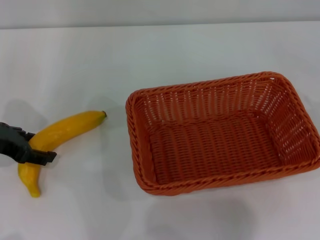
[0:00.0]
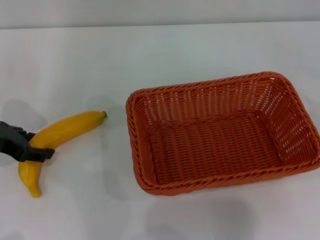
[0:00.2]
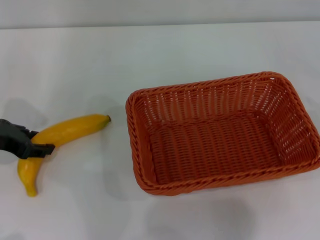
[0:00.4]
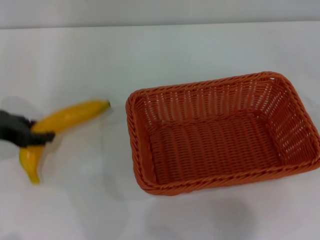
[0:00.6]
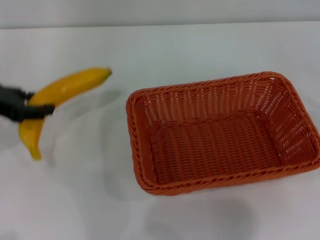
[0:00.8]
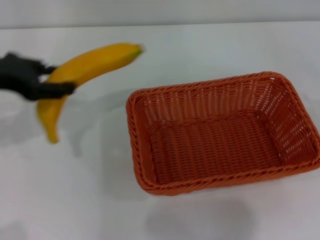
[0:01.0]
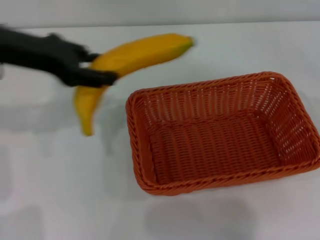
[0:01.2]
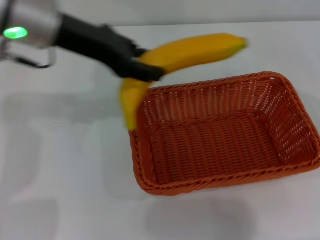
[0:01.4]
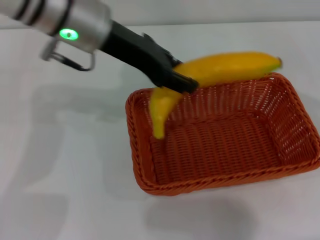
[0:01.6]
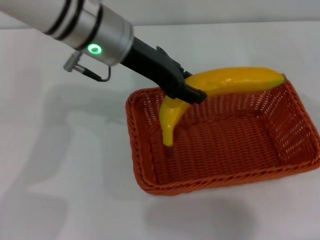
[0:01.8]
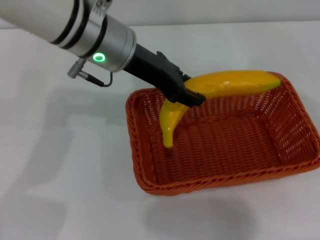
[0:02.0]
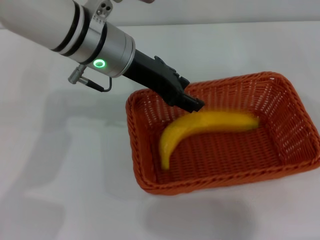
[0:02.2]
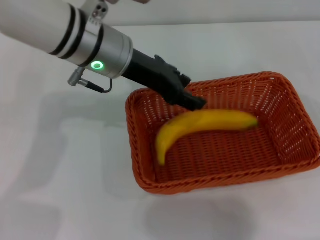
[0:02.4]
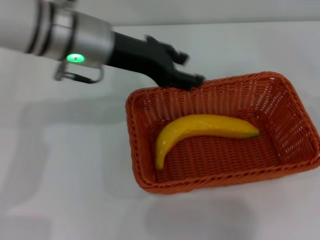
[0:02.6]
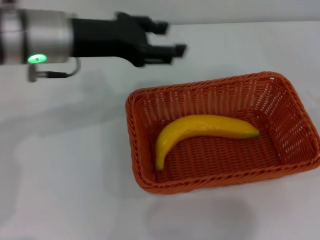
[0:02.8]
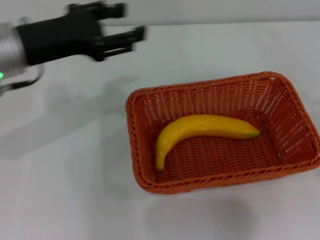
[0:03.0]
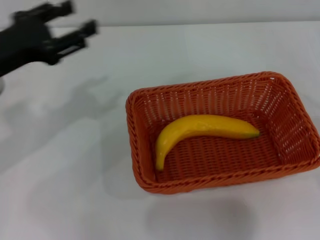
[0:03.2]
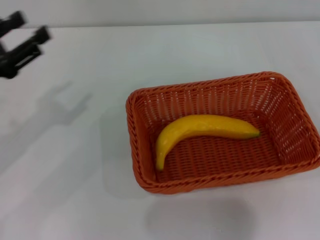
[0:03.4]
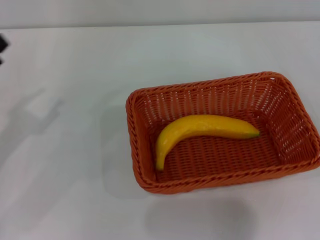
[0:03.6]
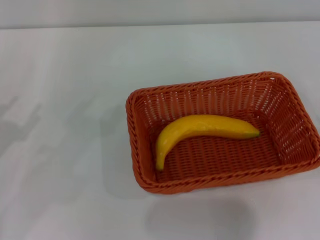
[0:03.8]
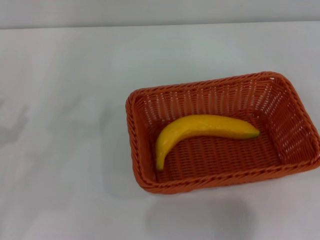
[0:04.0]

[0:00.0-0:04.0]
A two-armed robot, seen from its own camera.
Step, 0:00.8 to 0:02.4: Place the banana into the light basket with the left gripper.
0:00.0 to 0:01.4: The left gripper goes some 20 cm to the right and upward, and closes.
0:01.4 to 0:02.6: The left gripper opens its fingers.
0:02.6 to 0:04.0: The right gripper goes roughly 15 cm downward and backward, and opens. The left gripper travels to the left, backward and downward by about 30 cm.

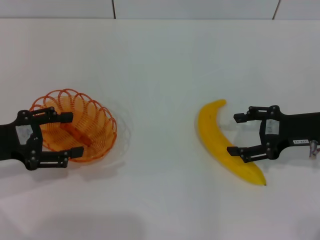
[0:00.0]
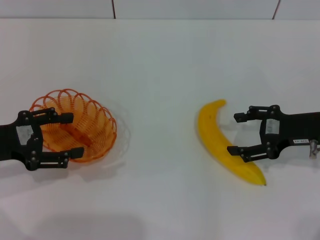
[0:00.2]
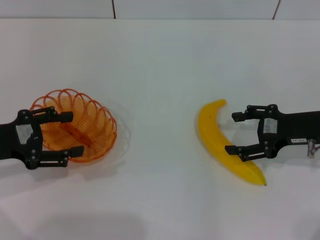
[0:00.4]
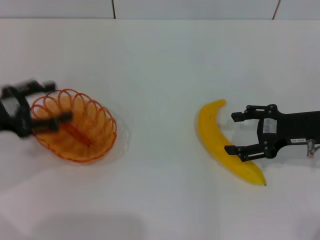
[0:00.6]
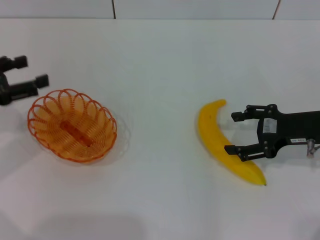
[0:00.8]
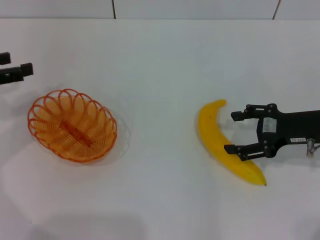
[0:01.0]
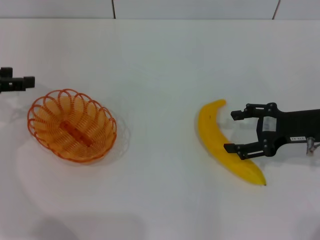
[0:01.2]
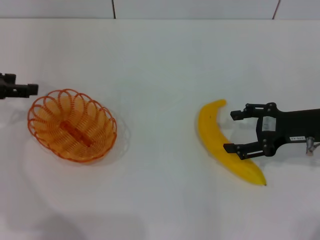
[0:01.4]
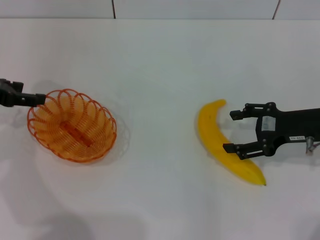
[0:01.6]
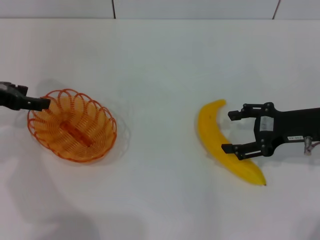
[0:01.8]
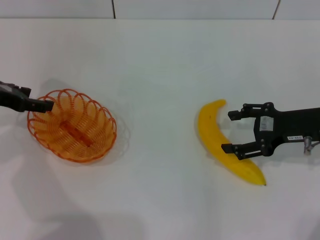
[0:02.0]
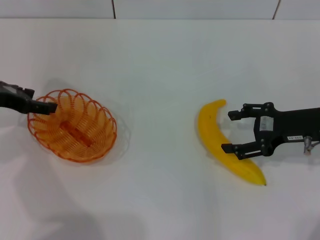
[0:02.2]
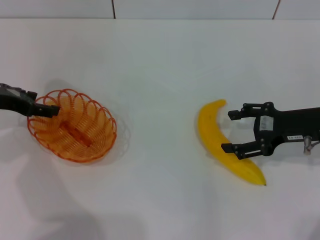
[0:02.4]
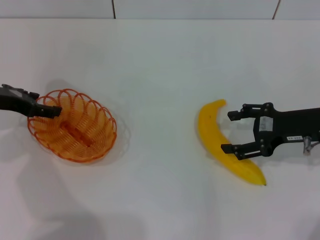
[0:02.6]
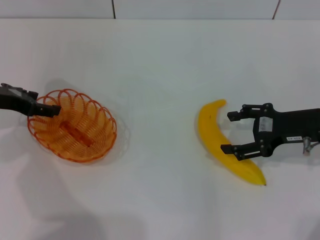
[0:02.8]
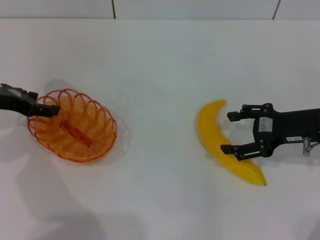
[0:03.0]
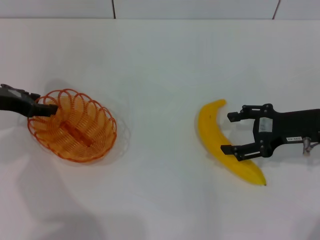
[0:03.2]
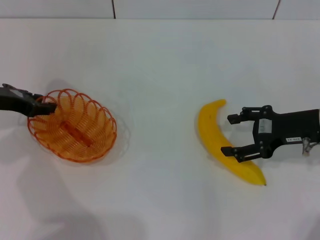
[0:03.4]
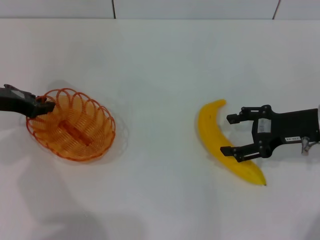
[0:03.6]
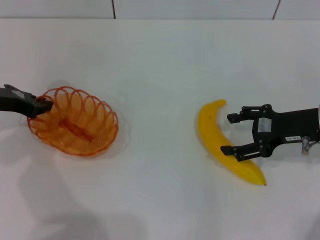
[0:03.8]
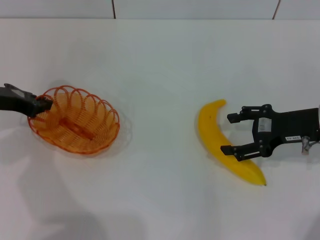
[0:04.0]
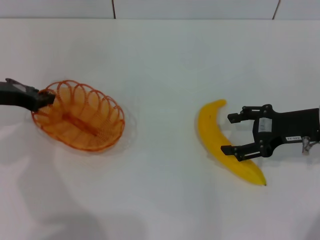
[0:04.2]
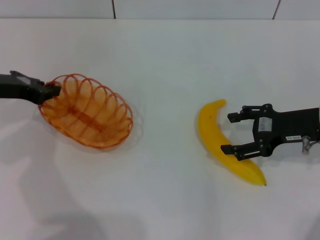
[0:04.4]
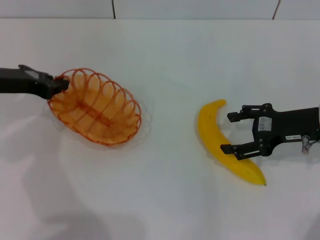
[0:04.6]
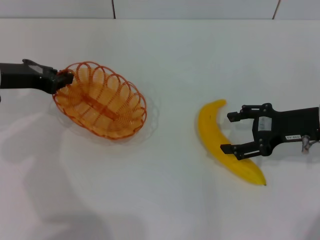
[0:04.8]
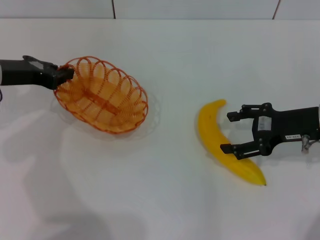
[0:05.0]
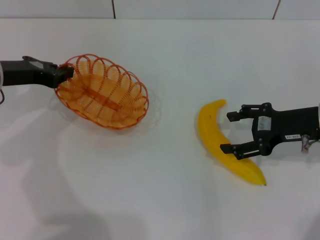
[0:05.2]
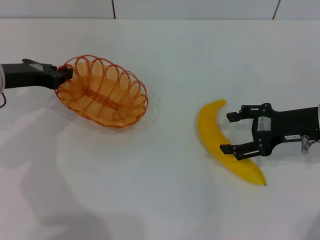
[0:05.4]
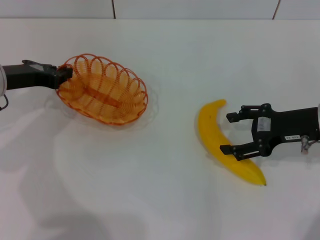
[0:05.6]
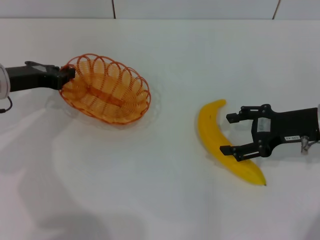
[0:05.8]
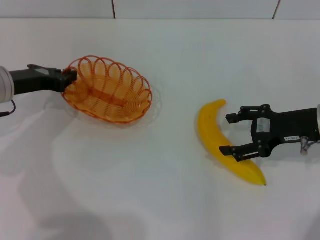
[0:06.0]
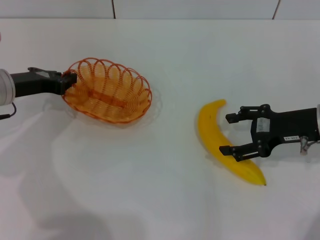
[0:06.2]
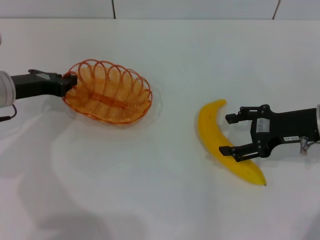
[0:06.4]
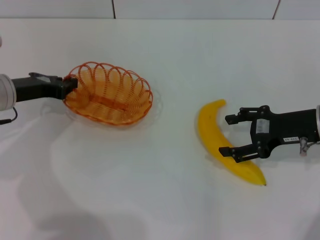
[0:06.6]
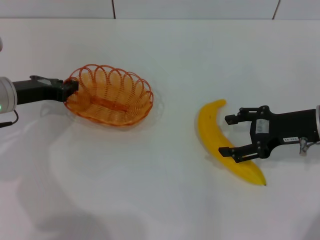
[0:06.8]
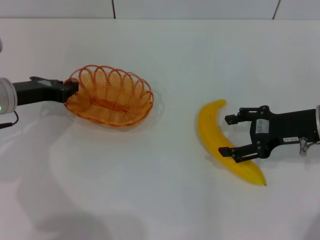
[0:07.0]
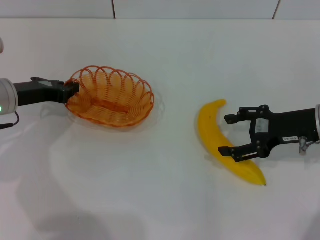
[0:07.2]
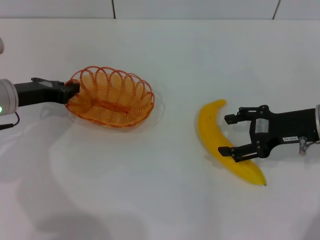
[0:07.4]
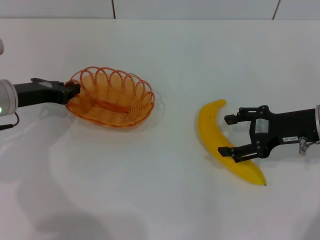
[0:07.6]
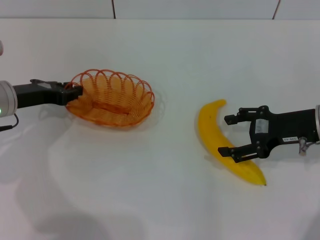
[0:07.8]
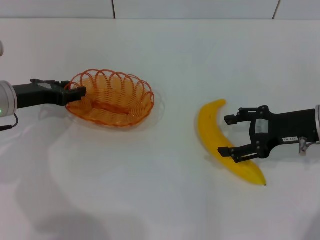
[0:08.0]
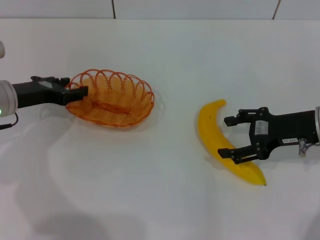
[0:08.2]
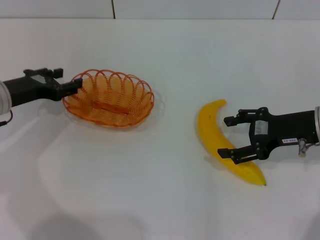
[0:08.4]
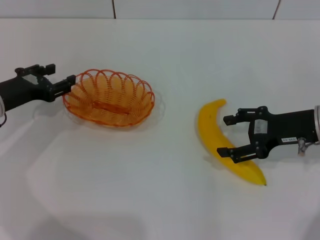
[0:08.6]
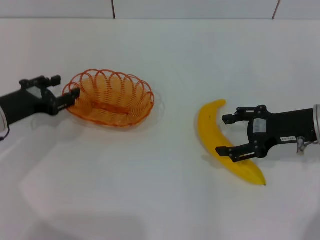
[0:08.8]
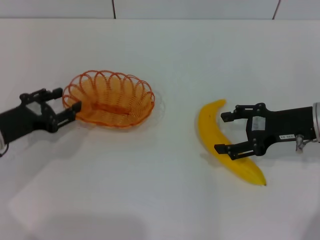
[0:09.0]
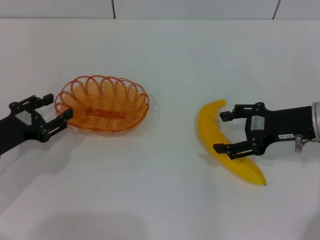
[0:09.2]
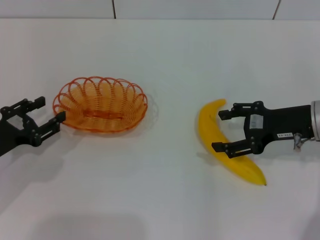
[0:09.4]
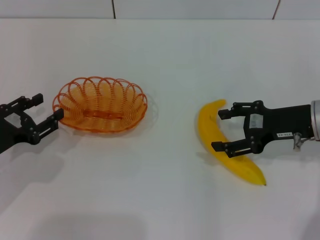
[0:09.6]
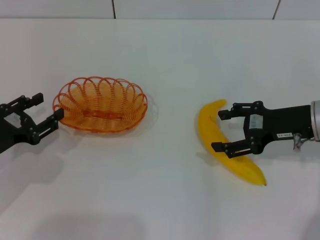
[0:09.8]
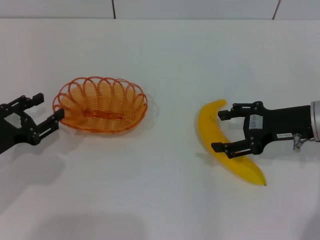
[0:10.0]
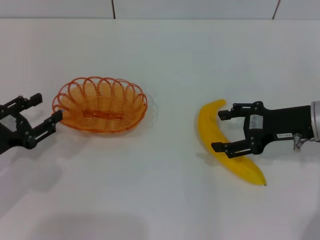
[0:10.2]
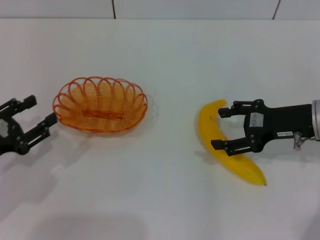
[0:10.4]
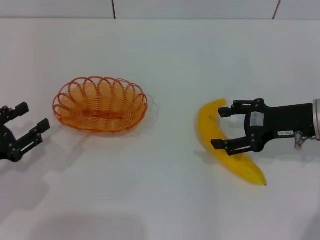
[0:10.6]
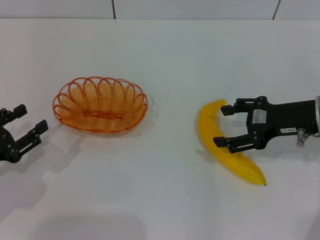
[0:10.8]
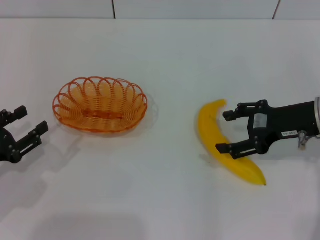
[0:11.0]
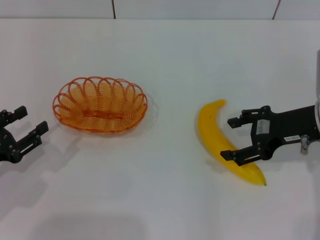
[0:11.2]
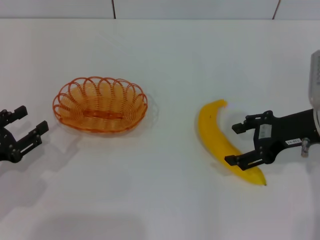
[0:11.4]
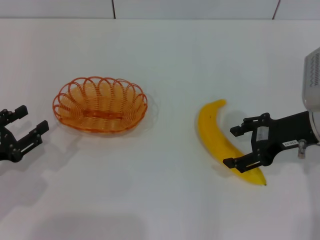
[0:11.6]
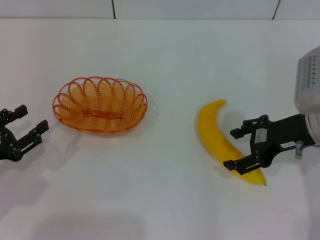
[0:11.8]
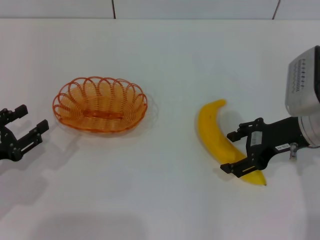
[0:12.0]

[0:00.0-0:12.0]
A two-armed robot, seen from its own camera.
Step, 0:00.0 to 0:04.4: Pick up the basket with the left gripper.
Step, 0:04.6 to 0:08.2: Place the basket in the center of view with the left gripper.
0:00.0 to 0:01.6: The left gripper moves forward, about 10 cm.
0:01.6 to 0:03.0: The grippers stay close to where they were, moving slightly.
0:03.0 to 0:04.4: The left gripper closes up.
0:04.4 to 0:07.6: There are only small adjustments of the grippers.
0:07.6 to 0:09.0: The left gripper goes roughly 5 cm backward, and opens.
0:09.0 to 0:10.4: The left gripper heads backward, covering roughly 5 cm.

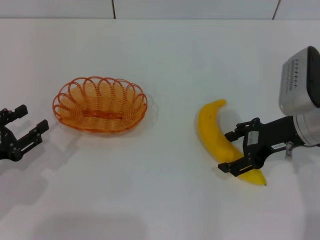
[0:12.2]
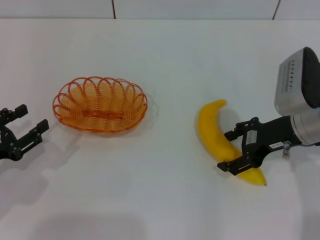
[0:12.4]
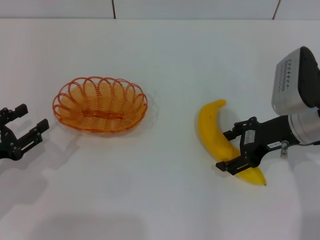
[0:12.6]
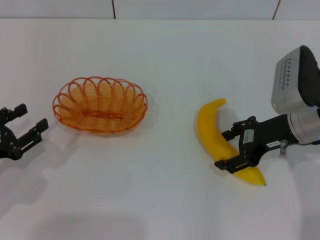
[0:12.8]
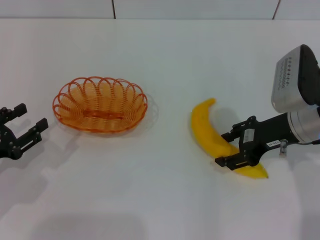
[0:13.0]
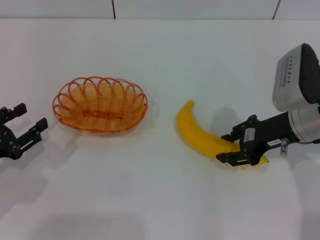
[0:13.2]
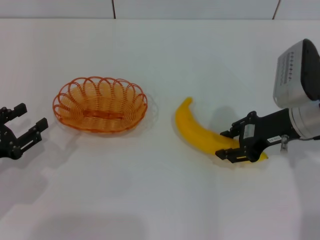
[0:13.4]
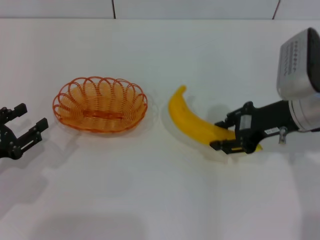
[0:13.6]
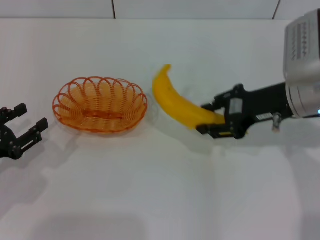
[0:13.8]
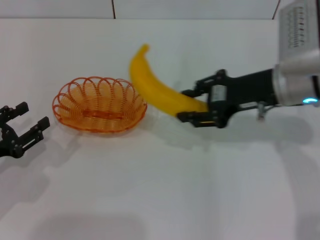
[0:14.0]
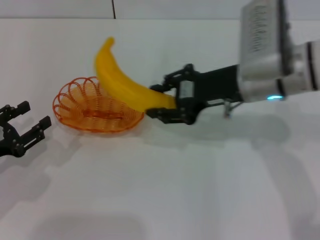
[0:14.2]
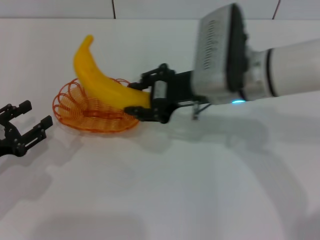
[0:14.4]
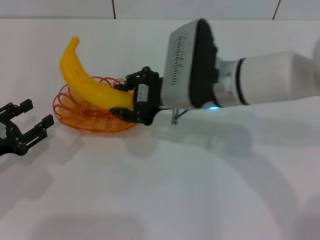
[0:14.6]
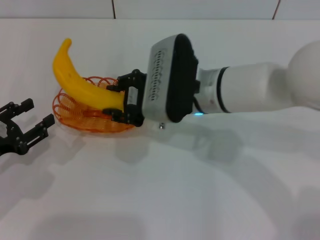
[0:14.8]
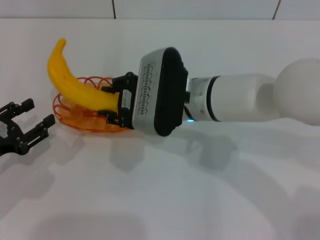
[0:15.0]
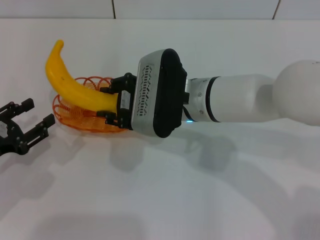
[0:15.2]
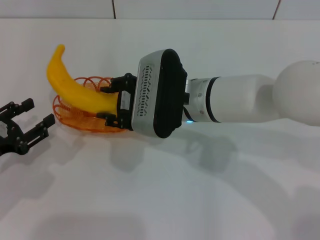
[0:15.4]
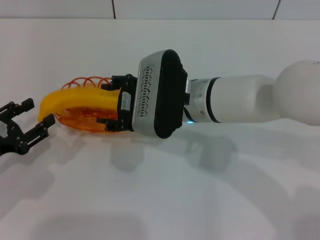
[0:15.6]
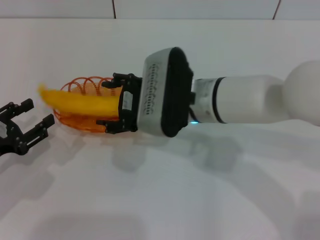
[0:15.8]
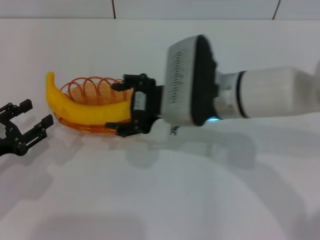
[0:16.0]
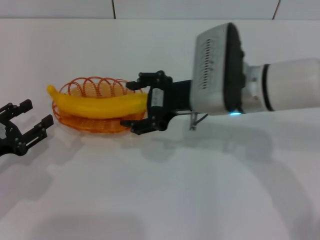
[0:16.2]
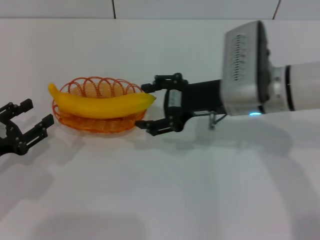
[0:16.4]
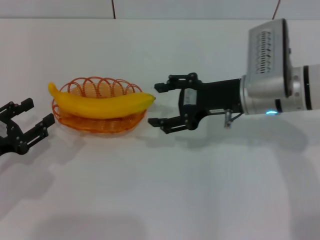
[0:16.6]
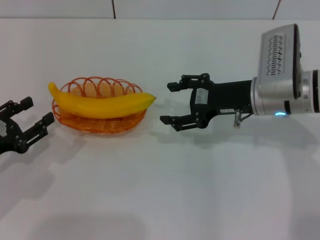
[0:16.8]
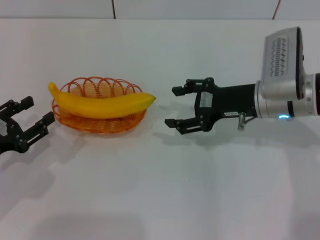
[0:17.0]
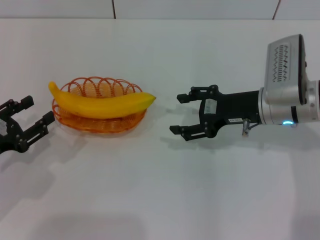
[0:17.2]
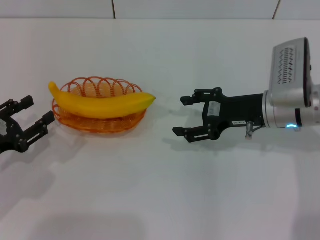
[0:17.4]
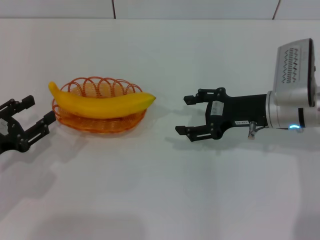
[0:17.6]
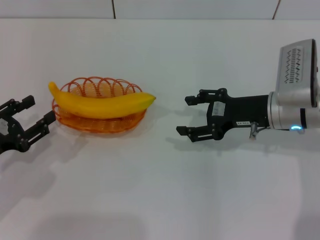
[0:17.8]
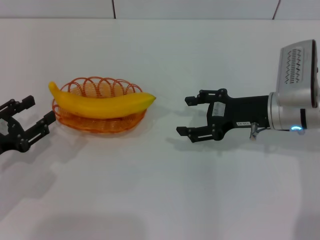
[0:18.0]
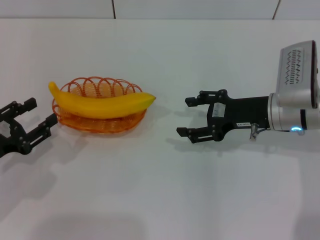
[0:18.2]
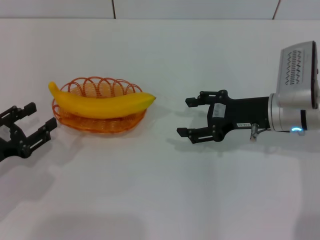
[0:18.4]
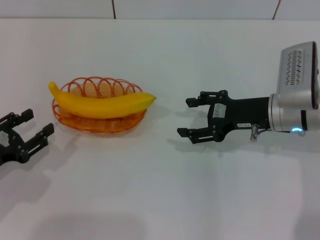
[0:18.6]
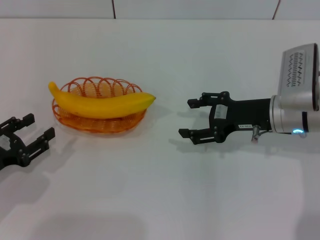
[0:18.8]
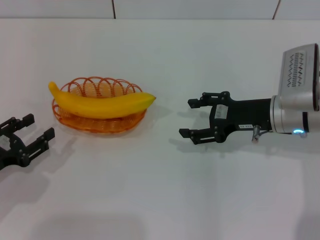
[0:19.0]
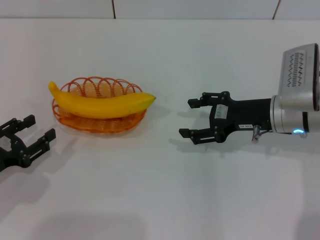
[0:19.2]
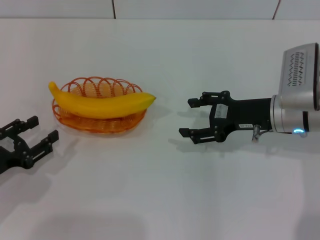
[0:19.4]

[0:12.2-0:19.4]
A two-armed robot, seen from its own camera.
Step, 0:14.0 to 0:17.0: Place the banana into the basket with the right gripper.
0:12.2 to 0:13.6: The right gripper closes its fingers.
0:13.6 to 0:15.0: The right gripper shifts roughly 15 cm to the left.
0:15.0 to 0:16.6: The right gripper is displaced to the right by some 10 cm, and opens up.
0:16.6 to 0:18.0: The right gripper shifts by about 5 cm.
0:18.0 to 0:19.4: The grippers stay close to where they were, moving slightly.
